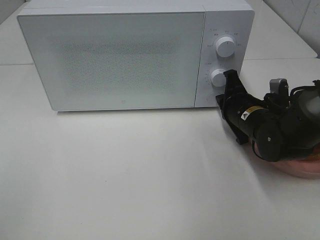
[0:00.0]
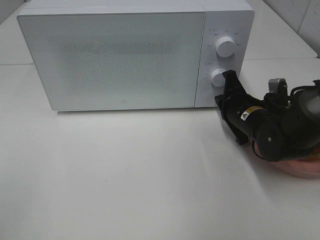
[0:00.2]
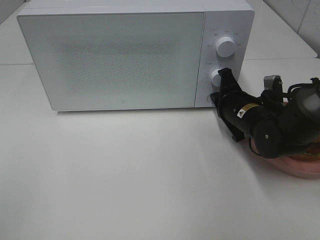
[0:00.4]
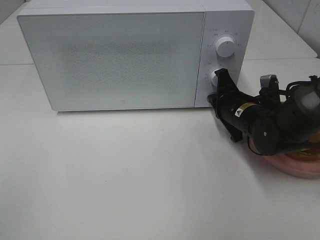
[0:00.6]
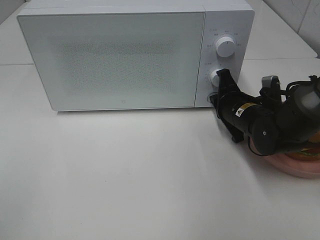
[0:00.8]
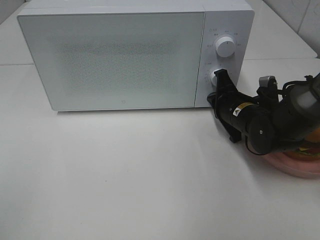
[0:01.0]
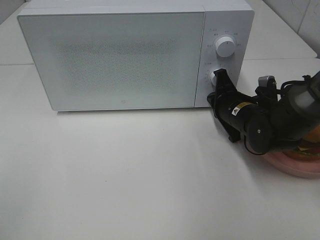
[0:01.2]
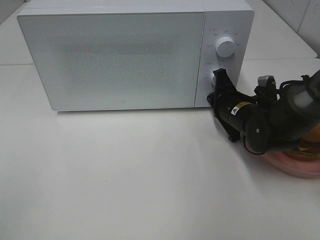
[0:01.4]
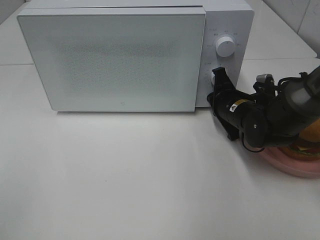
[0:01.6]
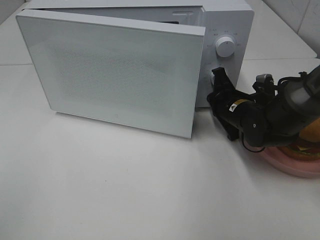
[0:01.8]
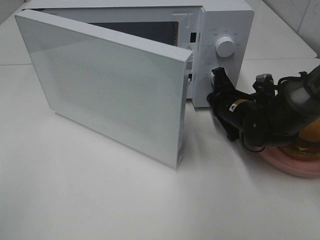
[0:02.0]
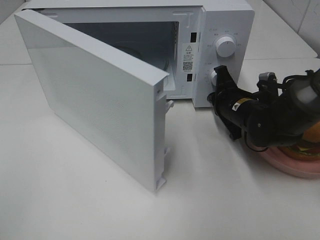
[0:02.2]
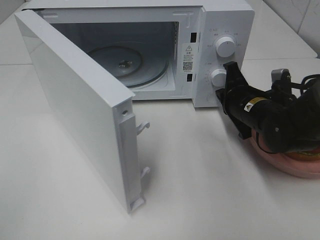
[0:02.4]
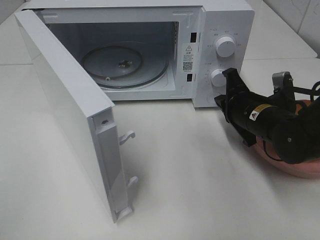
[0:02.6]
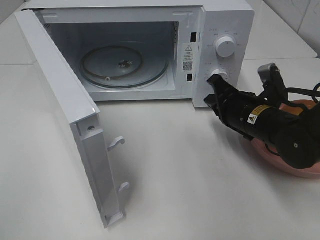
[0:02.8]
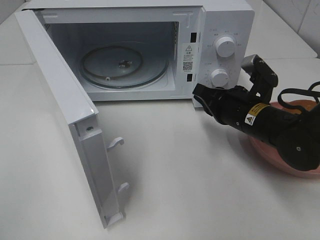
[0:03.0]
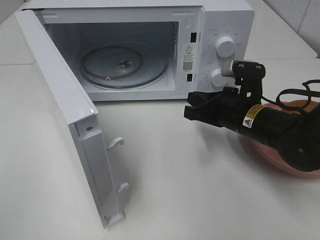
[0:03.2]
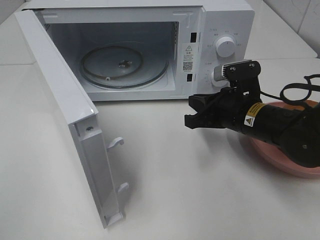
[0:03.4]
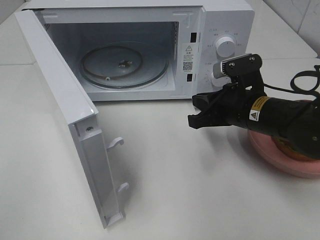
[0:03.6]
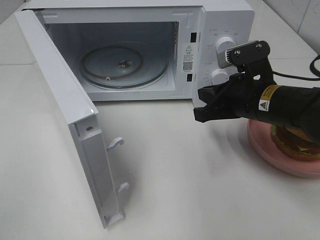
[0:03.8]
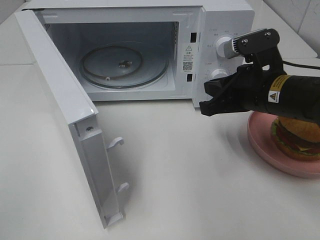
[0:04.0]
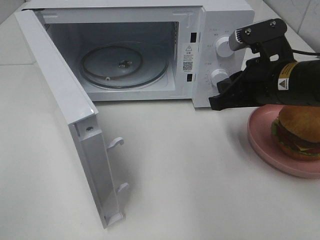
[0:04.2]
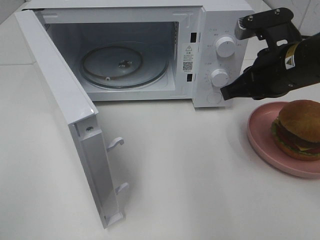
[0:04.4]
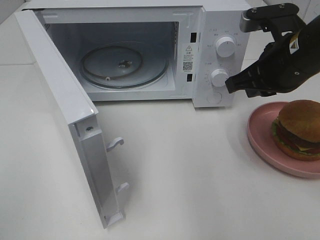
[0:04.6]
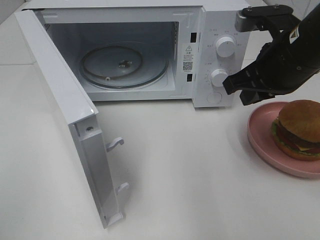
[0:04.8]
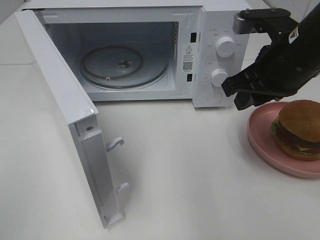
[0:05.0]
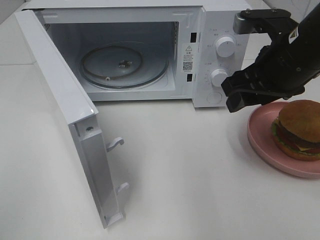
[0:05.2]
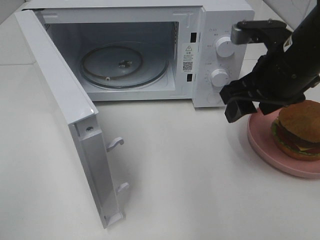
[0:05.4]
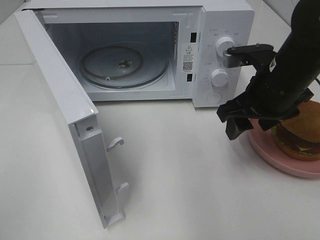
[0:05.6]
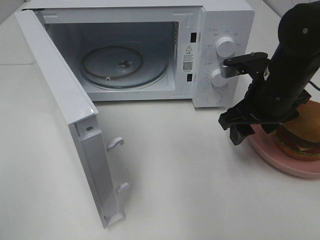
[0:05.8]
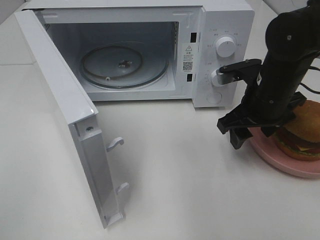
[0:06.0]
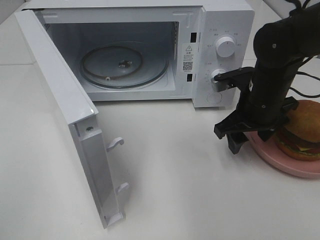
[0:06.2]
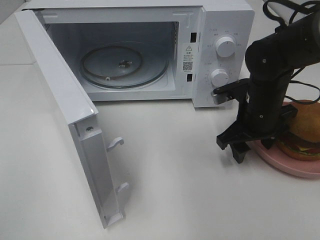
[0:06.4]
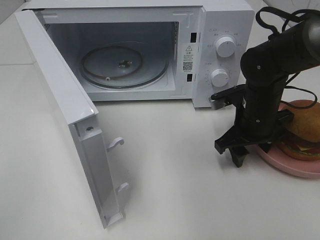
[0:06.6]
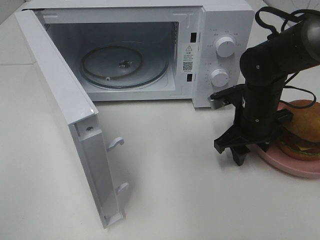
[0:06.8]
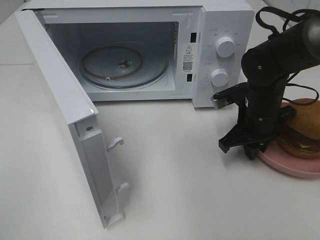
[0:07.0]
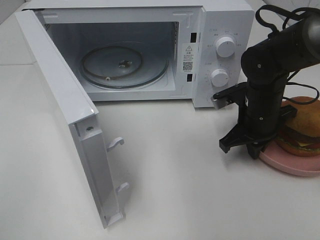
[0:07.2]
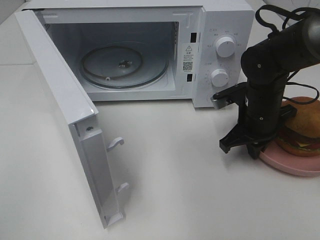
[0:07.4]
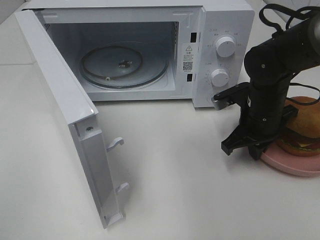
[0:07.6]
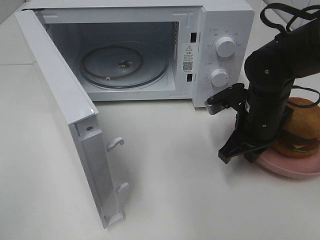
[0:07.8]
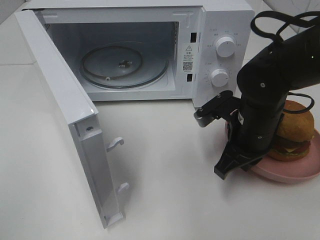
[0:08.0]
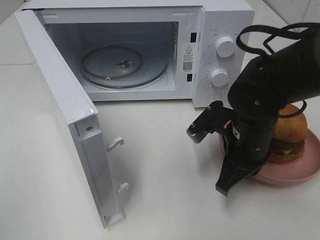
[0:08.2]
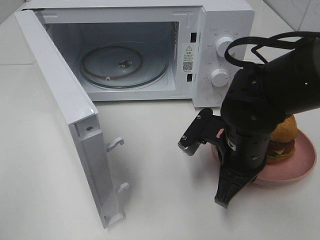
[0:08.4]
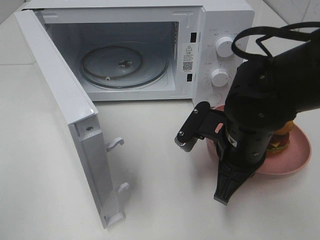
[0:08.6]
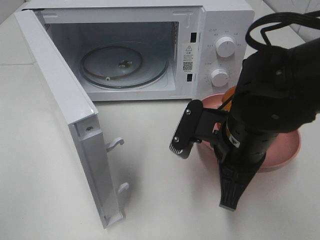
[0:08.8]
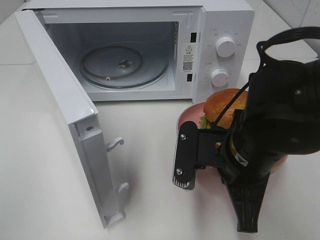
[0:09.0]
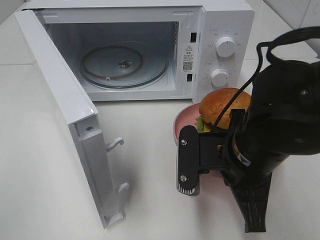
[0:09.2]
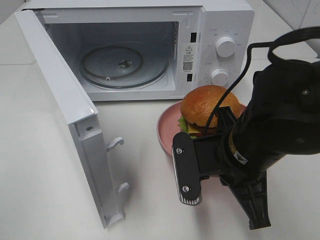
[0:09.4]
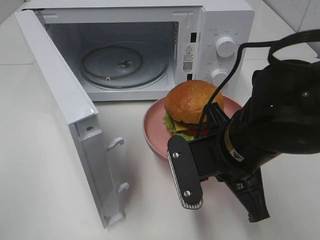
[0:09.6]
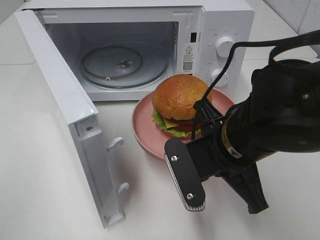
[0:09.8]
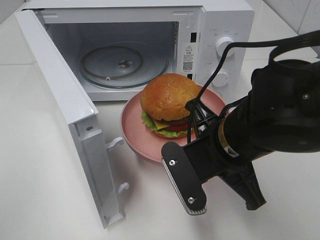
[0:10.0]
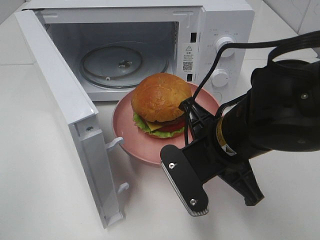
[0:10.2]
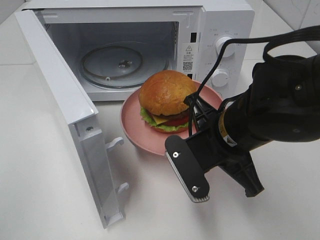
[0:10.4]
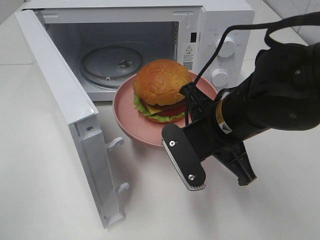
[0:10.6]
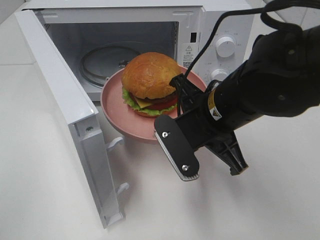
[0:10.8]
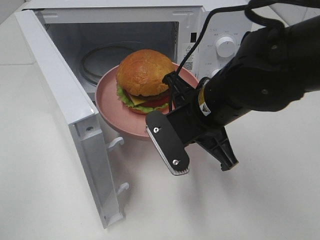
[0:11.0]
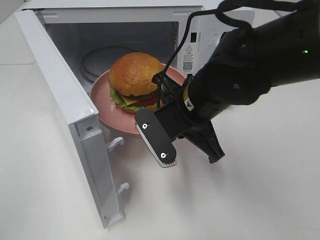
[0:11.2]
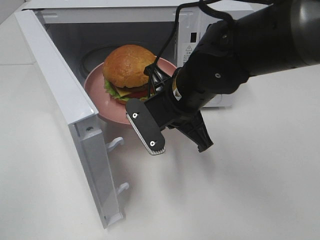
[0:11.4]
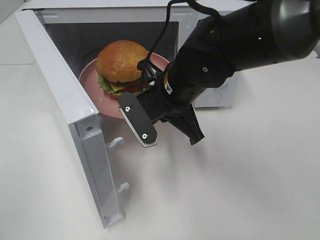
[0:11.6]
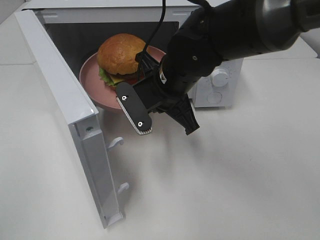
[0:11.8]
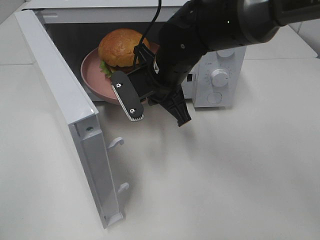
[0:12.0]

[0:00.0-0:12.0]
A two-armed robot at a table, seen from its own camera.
Task of the whole recording: Heat the burger.
Step, 0:00.0 to 0:02.4: Right hand: press the switch.
Step, 0:02.6 to 0:07.2: Right hand: grab the plate with the hamburger.
0:00.0 to 0:01.6: There are only small adjustments of the grippers.
0:01.6 to 0:03.0: The right gripper moves backward, some 5 cm.
0:03.0 to 0:04.4: The right gripper travels upward by approximately 10 cm.
0:04.4 to 0:06.0: The right gripper goes some 5 cm downward, and opens up.
0:06.0 to 0:07.6: The right gripper is displaced downward by some 5 cm, and closes up.
0:07.6 to 0:09.0: The right gripper is displaced backward and to the left by approximately 15 cm.
0:10.4 to 0:12.0: The right gripper shifts about 15 cm forward and to the left.

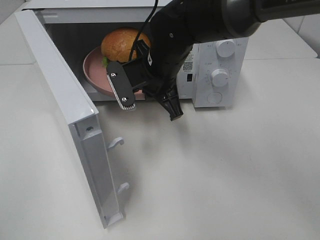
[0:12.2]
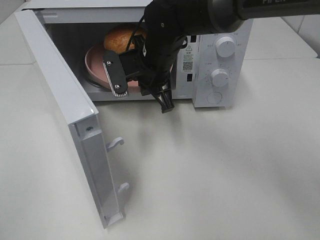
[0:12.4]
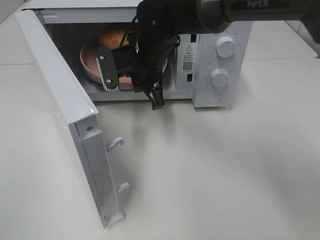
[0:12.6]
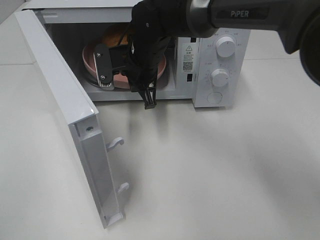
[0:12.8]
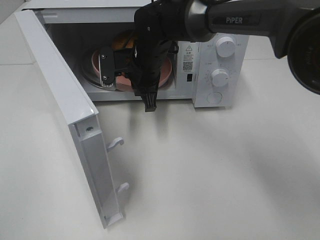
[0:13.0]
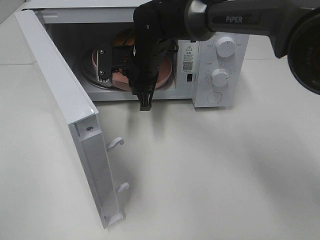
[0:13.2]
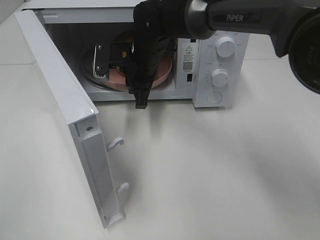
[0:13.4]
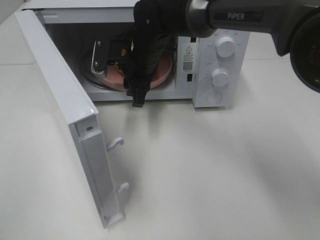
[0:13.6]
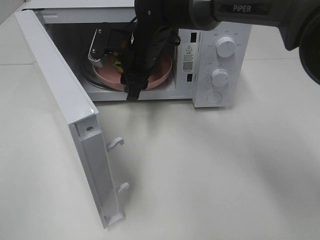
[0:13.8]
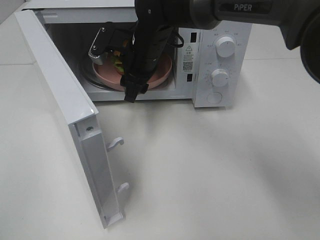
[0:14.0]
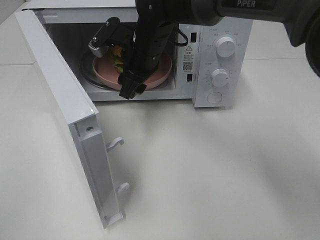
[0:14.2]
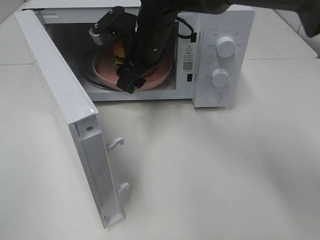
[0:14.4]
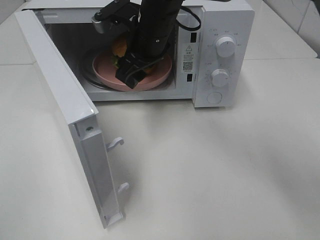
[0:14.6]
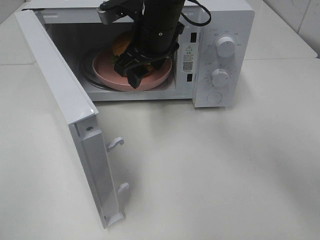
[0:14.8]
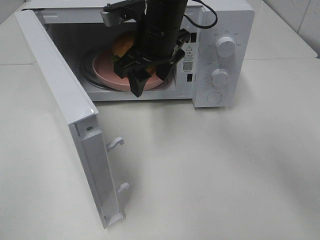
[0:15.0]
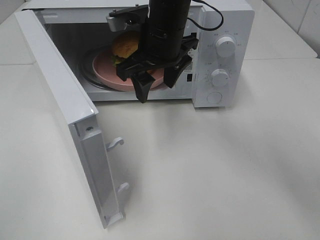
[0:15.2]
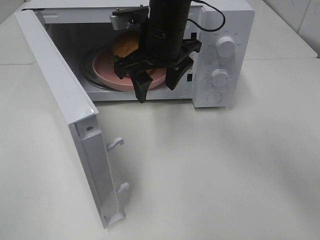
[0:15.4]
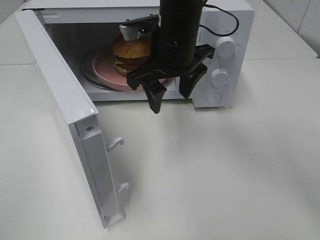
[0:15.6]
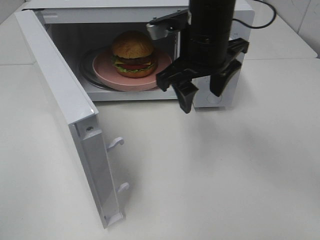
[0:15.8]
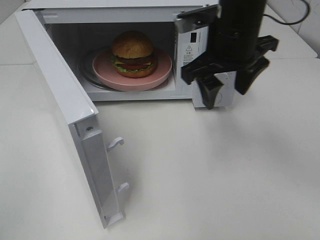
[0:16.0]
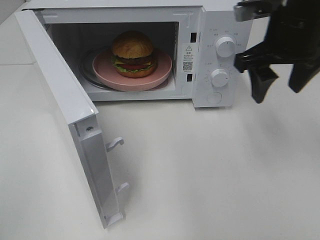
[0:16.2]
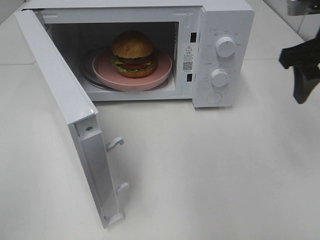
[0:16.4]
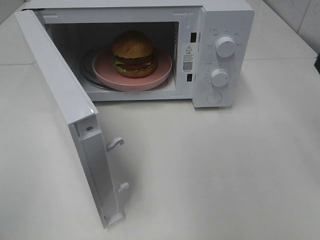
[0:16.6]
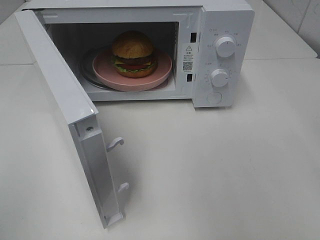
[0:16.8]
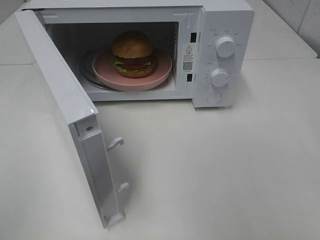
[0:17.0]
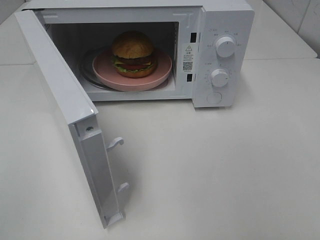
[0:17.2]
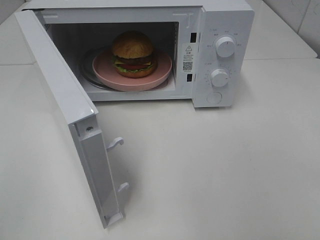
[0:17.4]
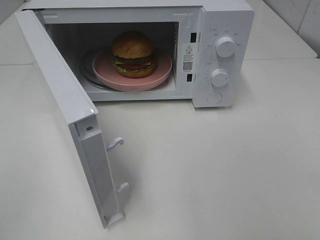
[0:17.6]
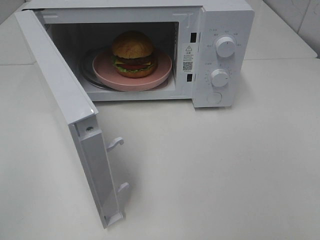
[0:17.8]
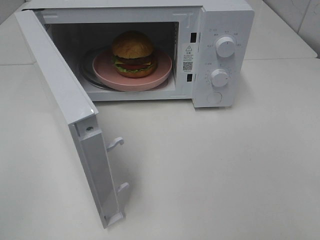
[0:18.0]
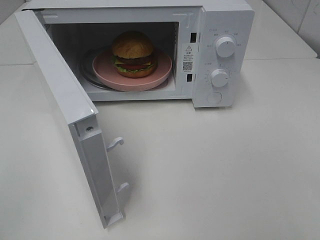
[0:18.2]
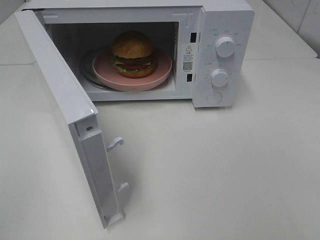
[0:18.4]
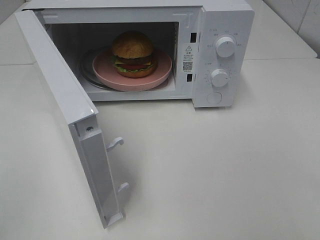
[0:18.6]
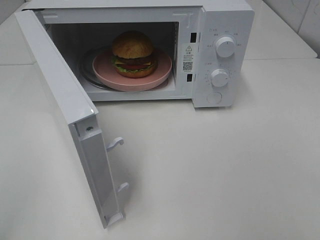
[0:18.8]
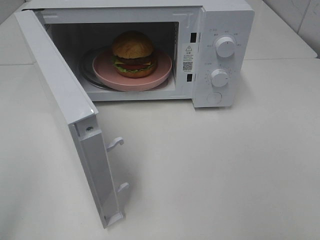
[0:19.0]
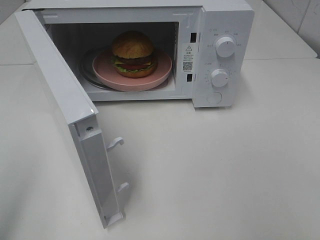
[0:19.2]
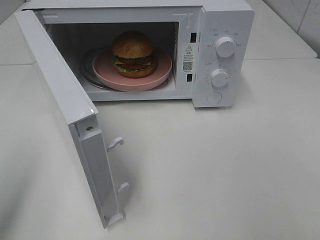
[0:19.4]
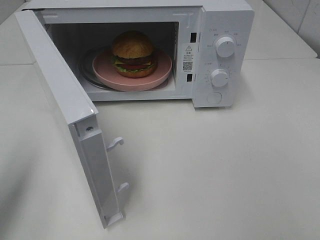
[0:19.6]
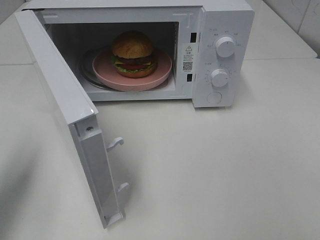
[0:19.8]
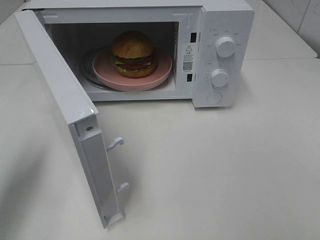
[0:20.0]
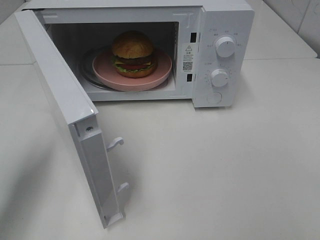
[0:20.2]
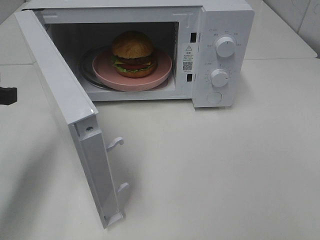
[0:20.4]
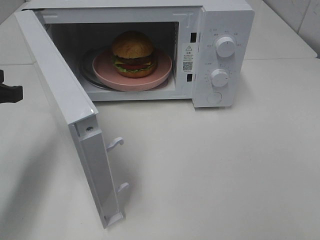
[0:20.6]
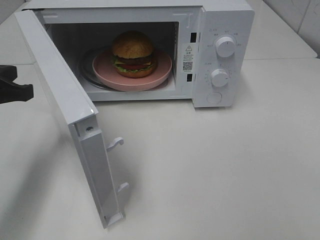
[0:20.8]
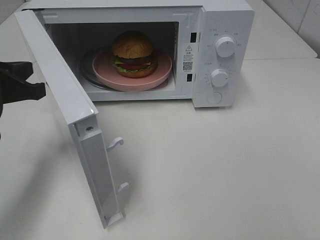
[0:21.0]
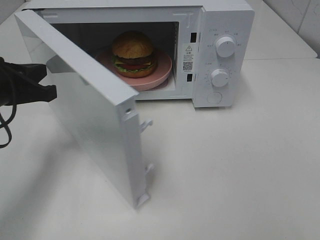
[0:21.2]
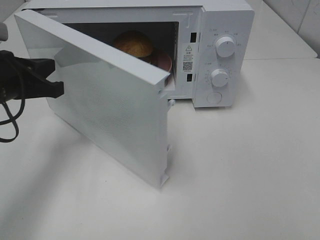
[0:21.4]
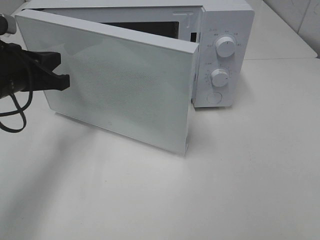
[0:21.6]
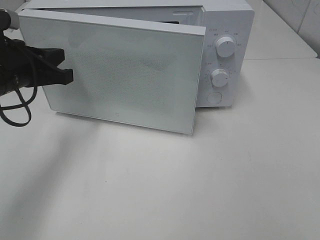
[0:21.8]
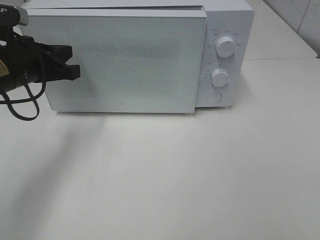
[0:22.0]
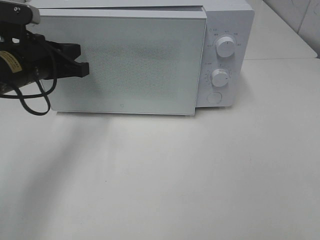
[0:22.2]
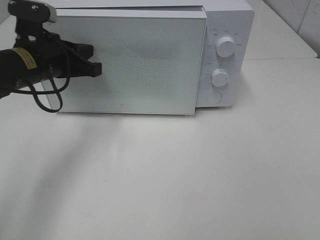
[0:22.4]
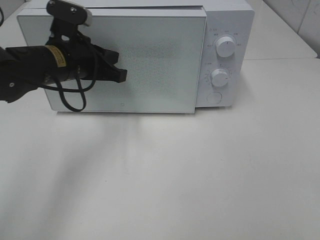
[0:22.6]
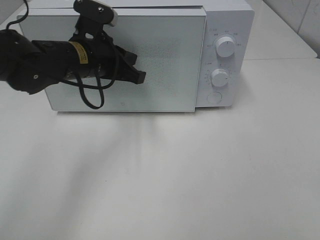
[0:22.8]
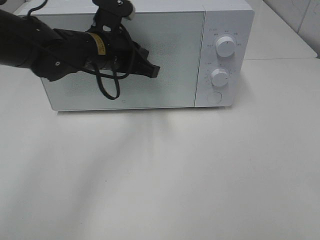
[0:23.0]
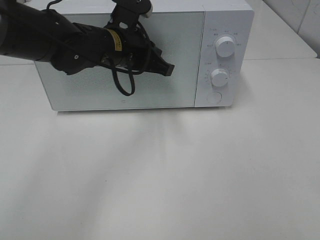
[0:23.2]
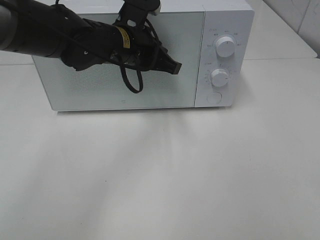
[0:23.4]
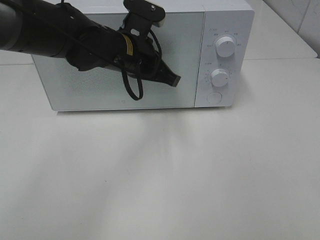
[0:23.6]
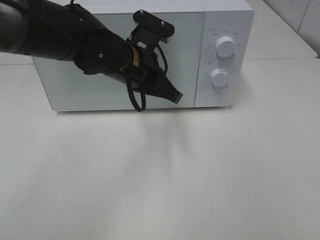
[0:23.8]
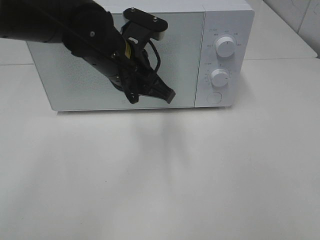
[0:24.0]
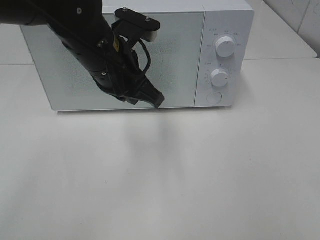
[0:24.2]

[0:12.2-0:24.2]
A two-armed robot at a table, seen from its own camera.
Task of the whole recording: Heat the burger.
Step, 0:13.6 to 0:23.6: Left hand: close the microwave door.
0:12.2 to 0:13.8: The right gripper goes approximately 5 cm forward, and opens its fingers.
0:13.8 to 0:15.2: The right gripper shifts some 5 cm upward.
0:15.2 to 0:16.6: The right gripper heads to the right and backward, covering roughly 30 cm.
0:18.2 to 0:19.8: The left gripper goes about 15 cm forward.
0:19.8 to 0:21.2: The left gripper moves forward, downward and to the right, some 15 cm.
0:21.2 to 0:22.6: The left gripper goes roughly 15 cm to the right and forward.
0:22.6 to 0:24.2: The left gripper is displaced to the right by approximately 10 cm.
